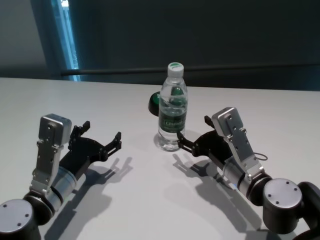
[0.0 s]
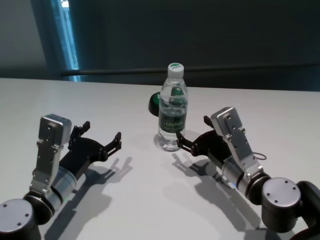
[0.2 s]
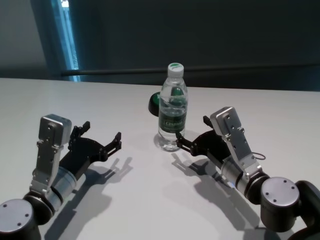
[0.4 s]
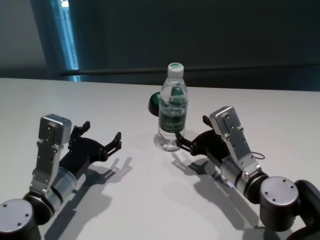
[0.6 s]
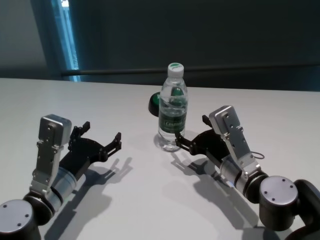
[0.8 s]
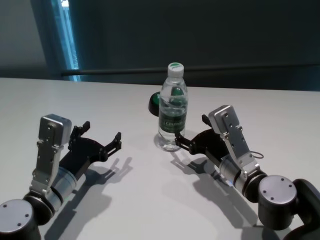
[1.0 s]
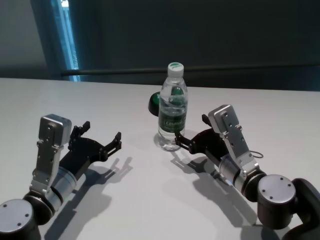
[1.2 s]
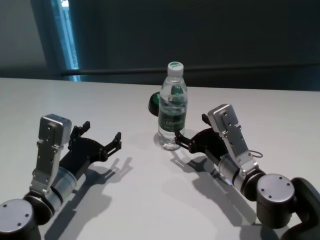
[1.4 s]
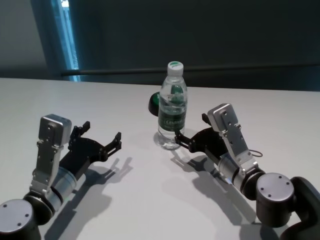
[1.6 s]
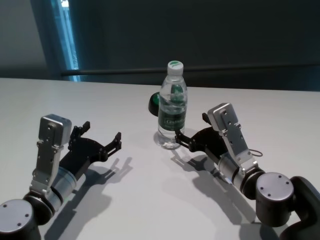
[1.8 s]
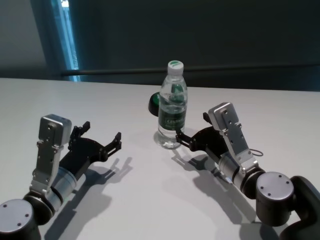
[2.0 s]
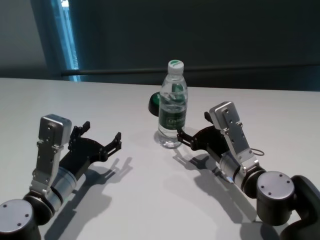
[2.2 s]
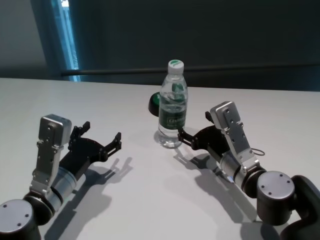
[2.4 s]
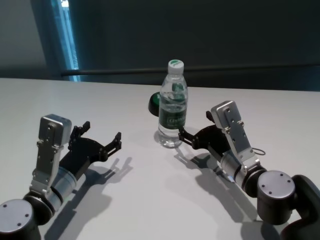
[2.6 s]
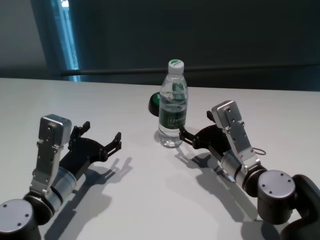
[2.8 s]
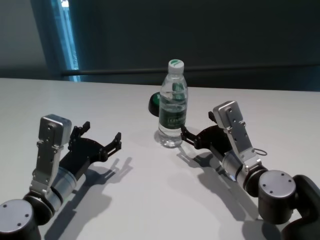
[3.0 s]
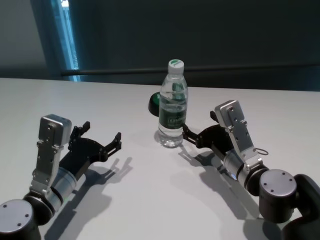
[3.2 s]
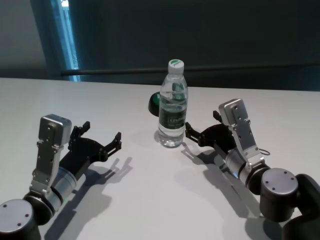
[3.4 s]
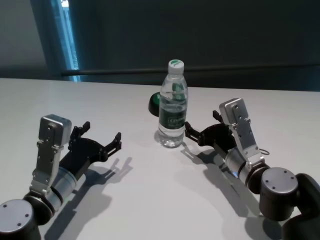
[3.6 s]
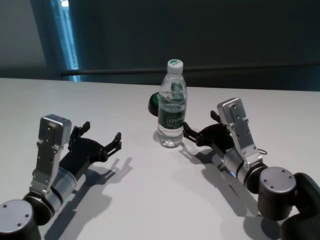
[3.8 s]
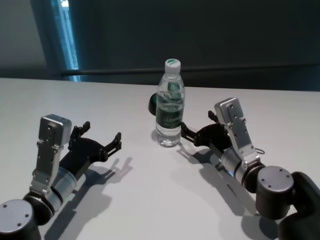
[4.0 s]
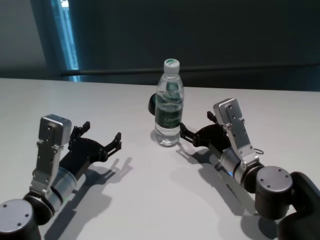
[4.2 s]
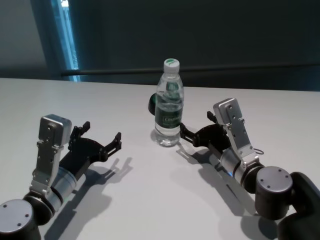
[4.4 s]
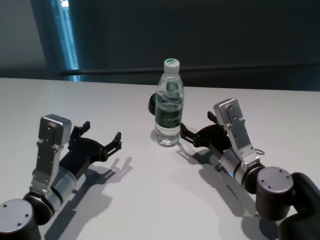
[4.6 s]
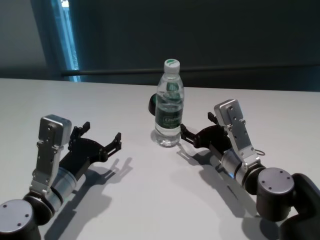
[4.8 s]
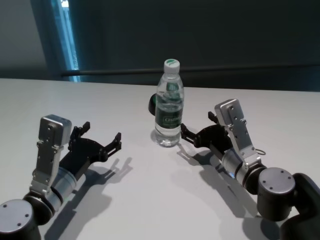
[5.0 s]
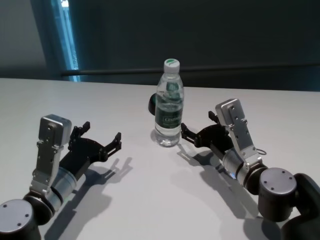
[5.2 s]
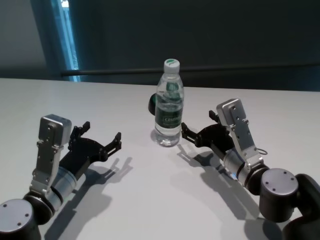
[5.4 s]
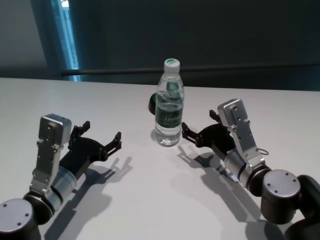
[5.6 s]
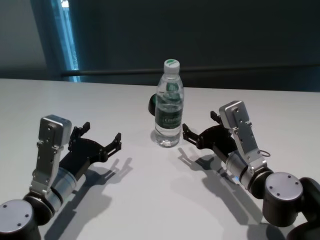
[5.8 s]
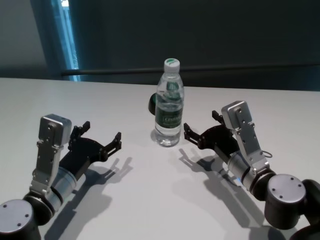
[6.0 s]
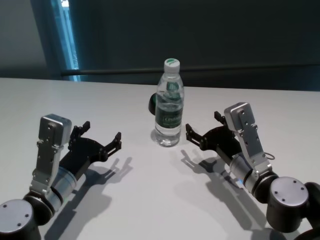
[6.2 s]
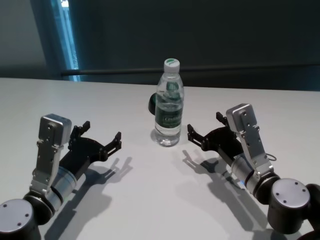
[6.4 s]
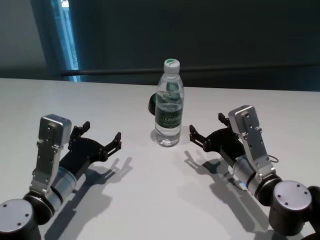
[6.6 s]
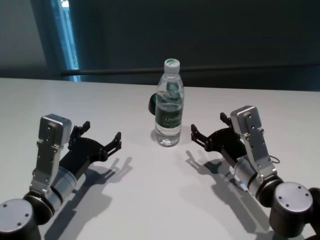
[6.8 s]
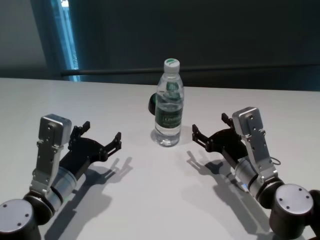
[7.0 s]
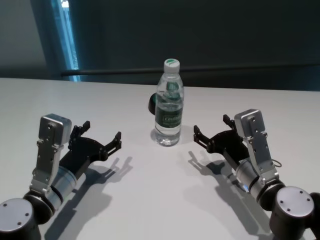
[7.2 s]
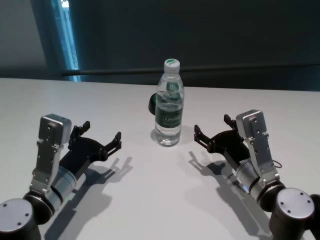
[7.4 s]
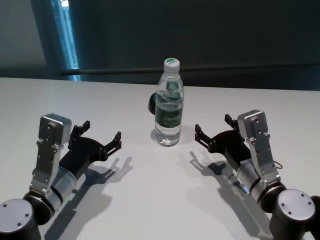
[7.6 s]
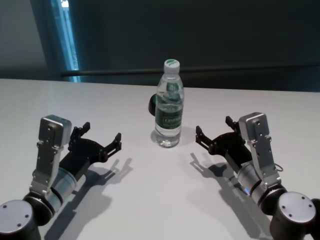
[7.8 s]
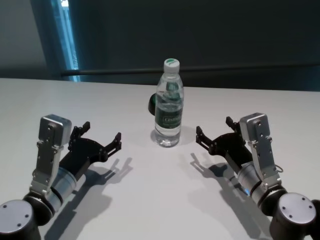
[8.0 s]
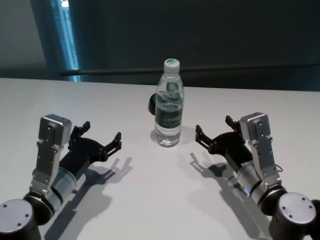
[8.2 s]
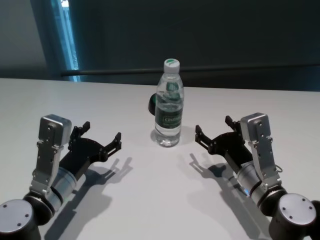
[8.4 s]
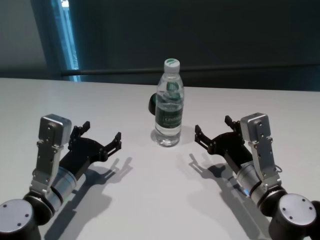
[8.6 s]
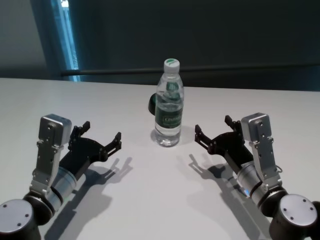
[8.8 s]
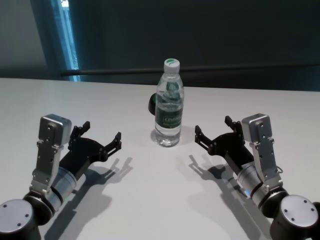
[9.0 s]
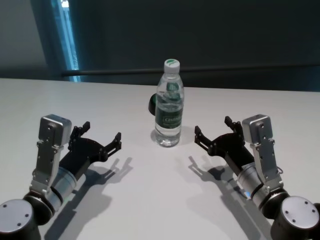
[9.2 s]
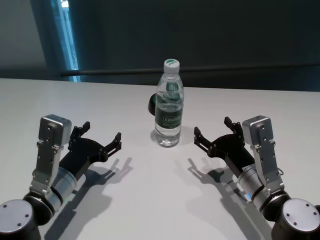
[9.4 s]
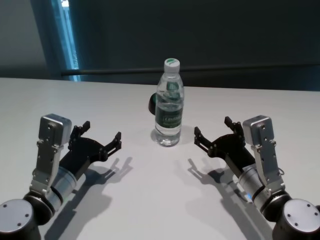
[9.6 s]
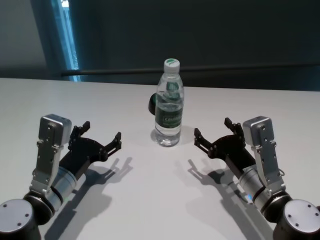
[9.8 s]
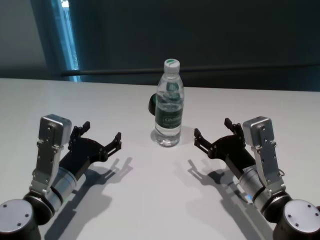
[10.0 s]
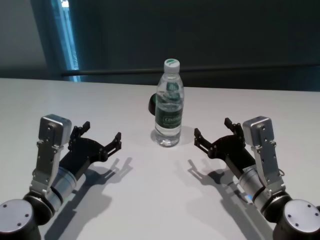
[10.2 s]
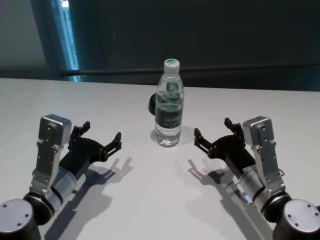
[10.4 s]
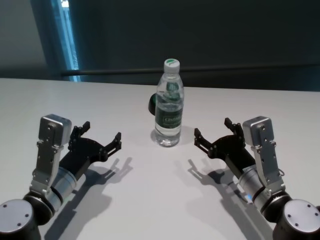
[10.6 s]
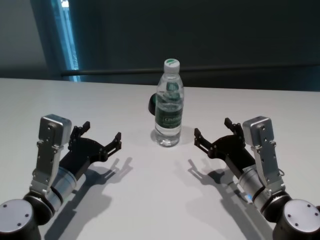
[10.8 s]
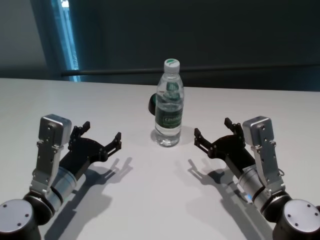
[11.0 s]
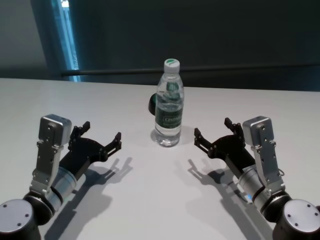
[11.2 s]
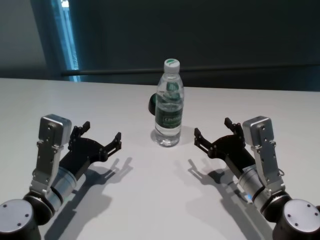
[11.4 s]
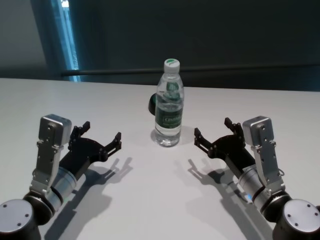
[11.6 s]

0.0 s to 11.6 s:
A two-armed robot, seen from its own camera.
Task of the whole recording: return to a safe position after touching an obstacle with your arm on the white table.
Step, 0.0 to 6.0 s: Touch the bottle with right gripper.

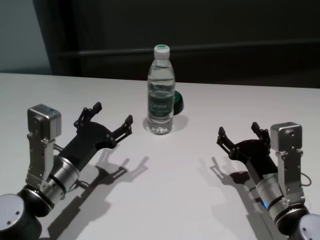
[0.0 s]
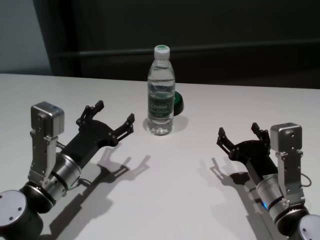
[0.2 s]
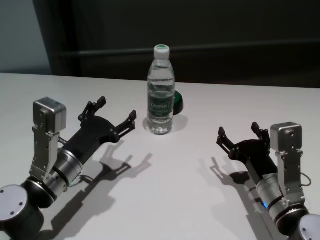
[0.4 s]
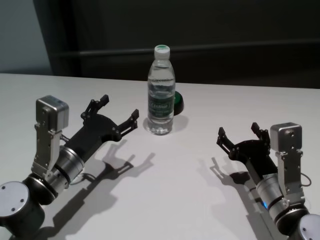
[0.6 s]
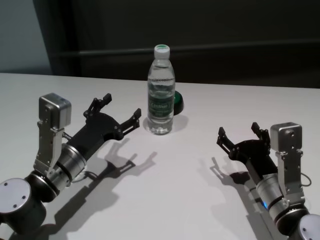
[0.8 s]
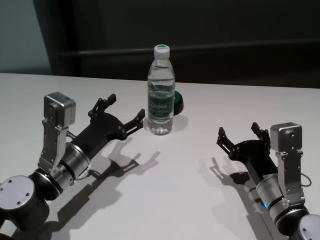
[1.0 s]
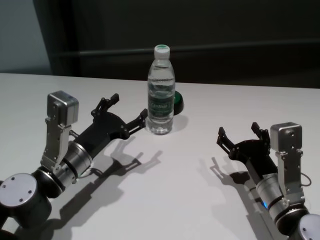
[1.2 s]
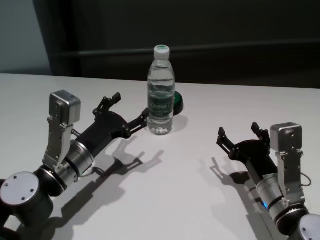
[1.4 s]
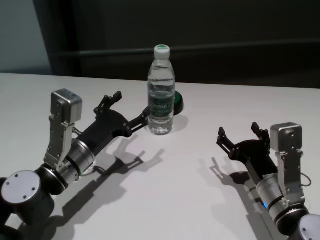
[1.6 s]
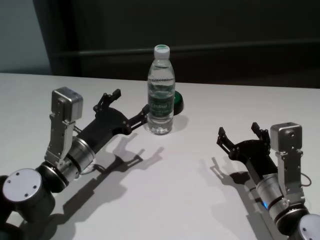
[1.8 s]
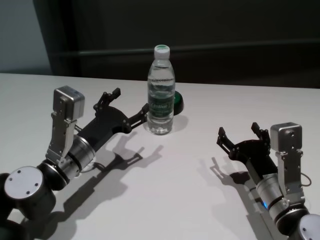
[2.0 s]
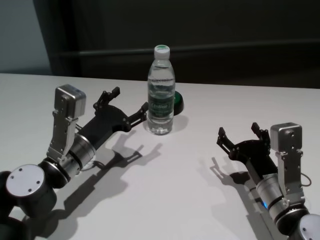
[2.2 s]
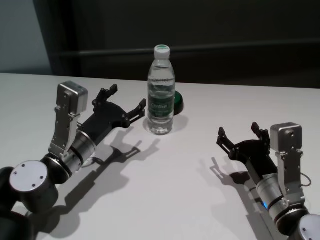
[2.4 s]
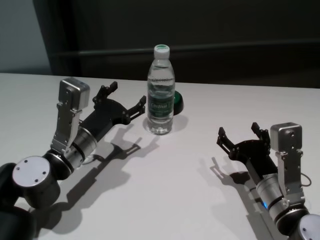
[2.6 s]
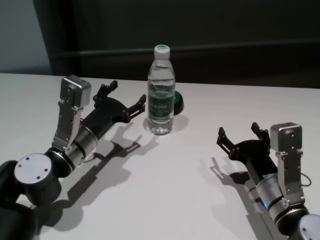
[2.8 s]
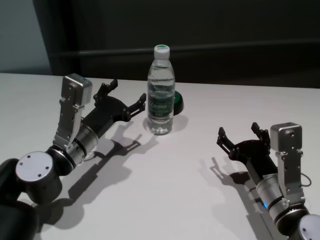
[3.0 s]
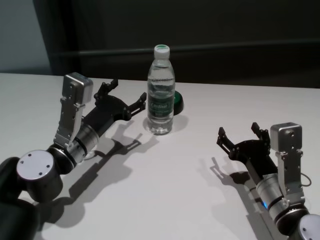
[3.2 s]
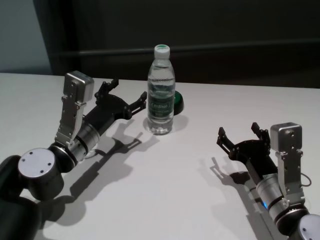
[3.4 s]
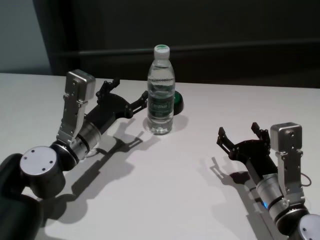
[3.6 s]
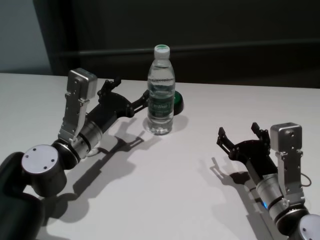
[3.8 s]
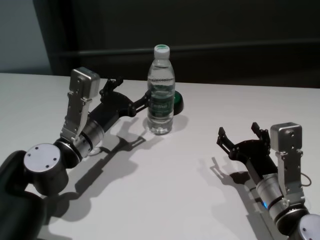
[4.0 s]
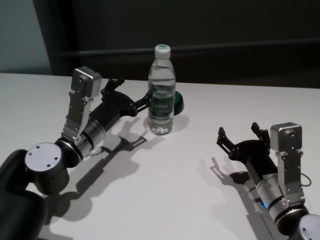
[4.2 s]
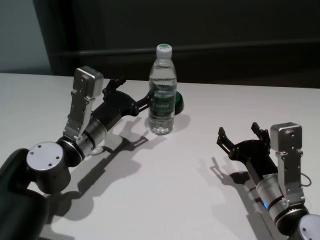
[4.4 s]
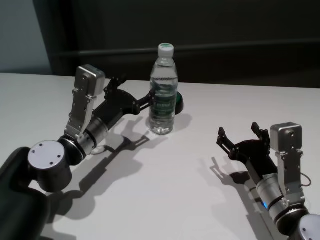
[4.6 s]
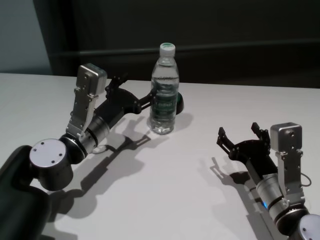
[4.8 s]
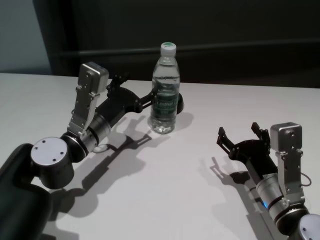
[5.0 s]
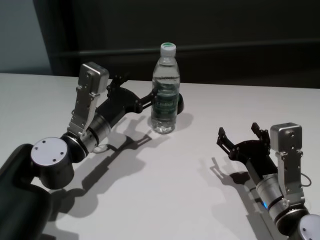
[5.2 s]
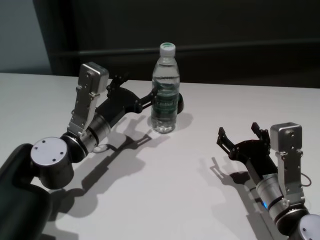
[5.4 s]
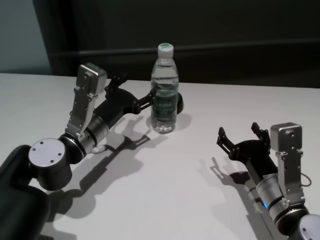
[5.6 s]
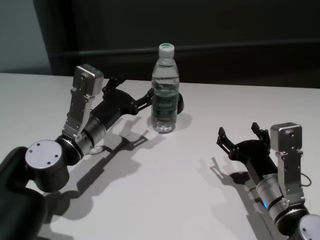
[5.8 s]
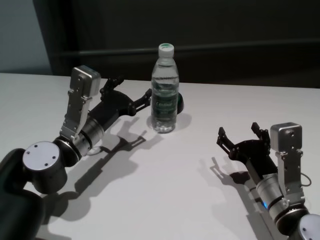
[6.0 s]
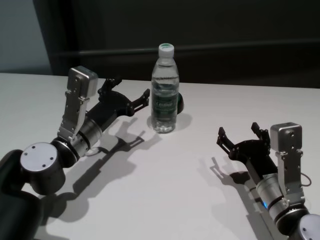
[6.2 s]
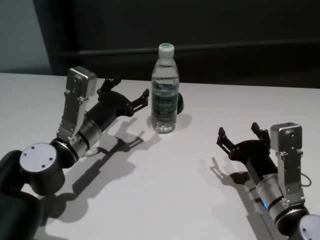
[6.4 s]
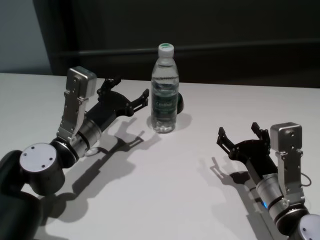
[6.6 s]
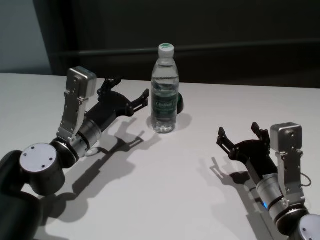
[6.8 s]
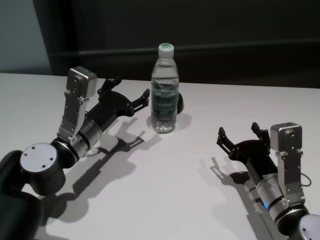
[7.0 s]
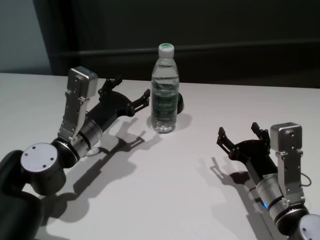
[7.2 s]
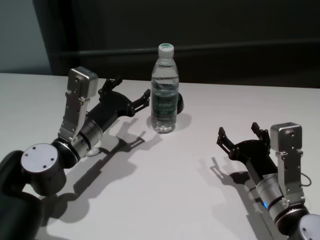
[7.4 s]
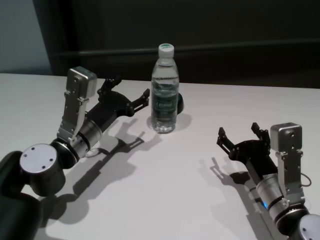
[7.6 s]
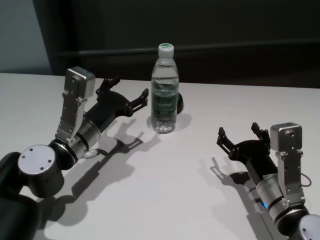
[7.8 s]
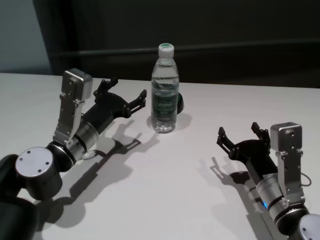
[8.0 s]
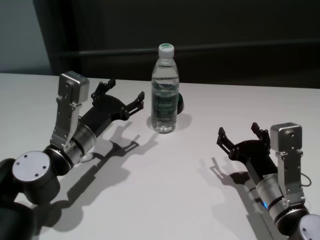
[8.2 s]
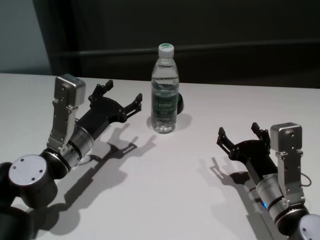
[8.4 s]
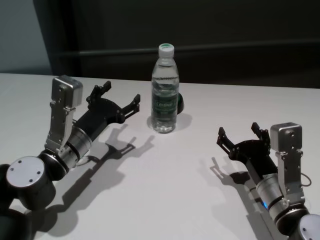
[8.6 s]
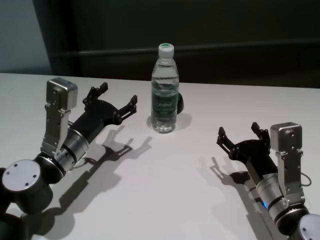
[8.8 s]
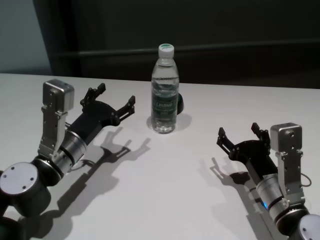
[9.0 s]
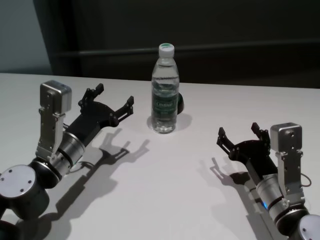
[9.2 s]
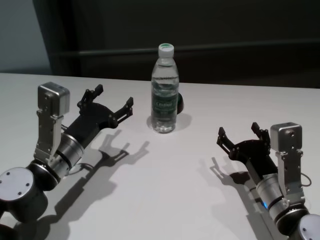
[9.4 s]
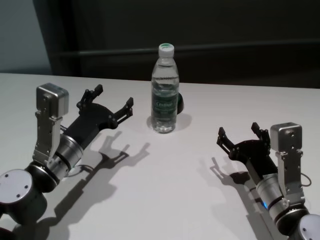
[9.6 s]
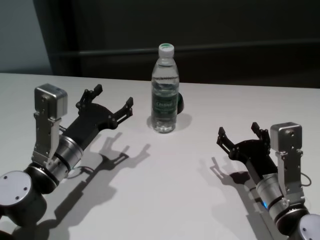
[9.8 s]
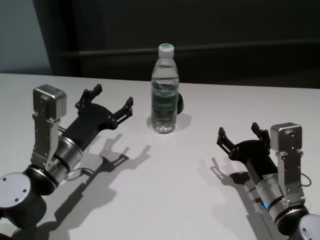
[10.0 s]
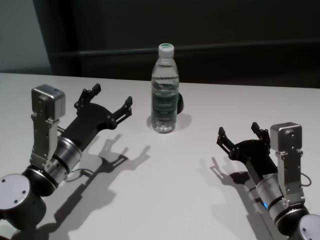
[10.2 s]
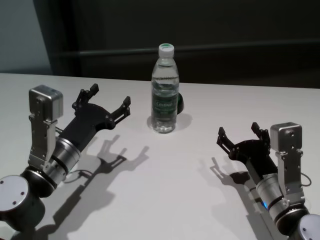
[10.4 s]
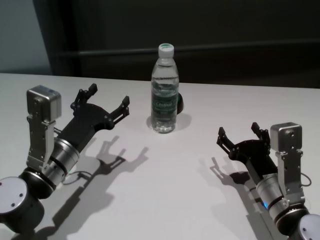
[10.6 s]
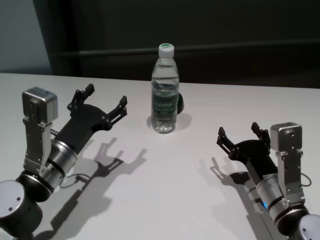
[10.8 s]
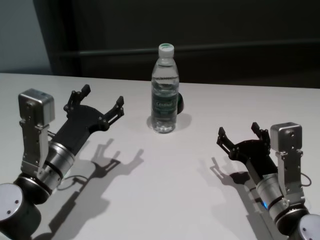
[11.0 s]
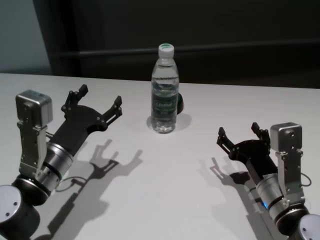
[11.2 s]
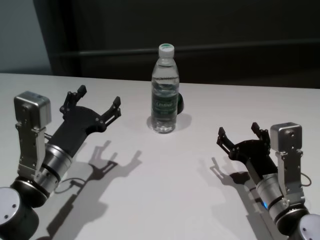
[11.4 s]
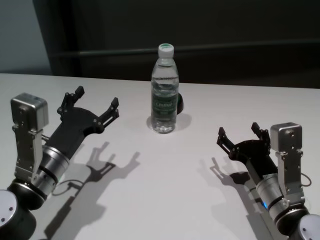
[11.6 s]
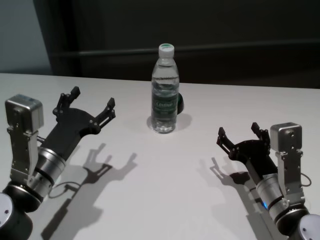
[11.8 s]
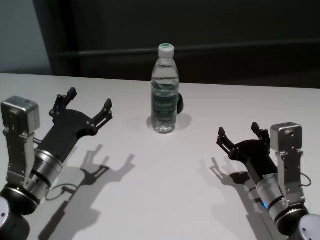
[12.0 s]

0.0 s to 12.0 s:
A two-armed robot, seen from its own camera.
Task of the whole recording: return to a safe position after touching an obstacle with your arm on the white table.
Step, 0.0 to 6.8 s: Touch the bottle with left gripper.
